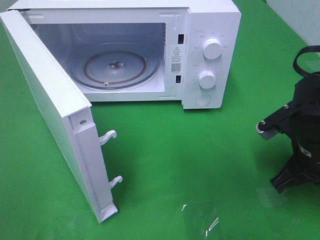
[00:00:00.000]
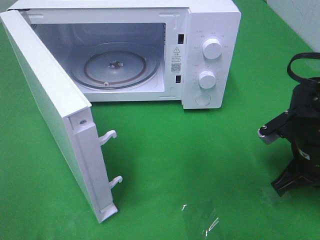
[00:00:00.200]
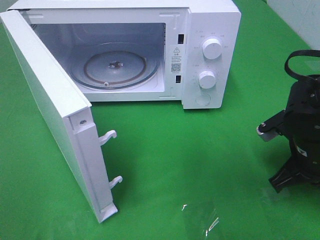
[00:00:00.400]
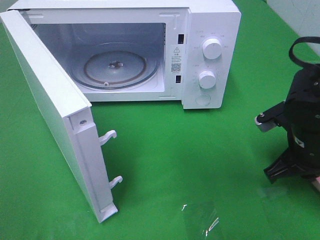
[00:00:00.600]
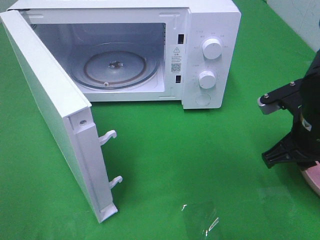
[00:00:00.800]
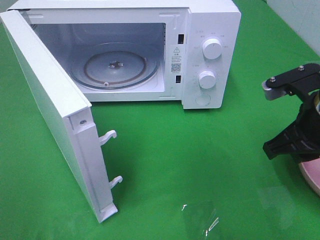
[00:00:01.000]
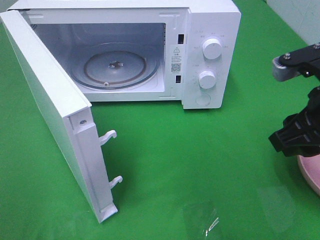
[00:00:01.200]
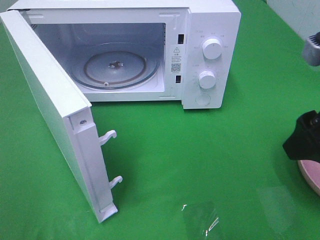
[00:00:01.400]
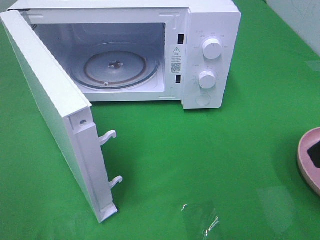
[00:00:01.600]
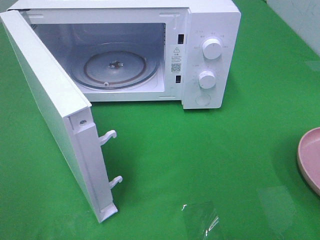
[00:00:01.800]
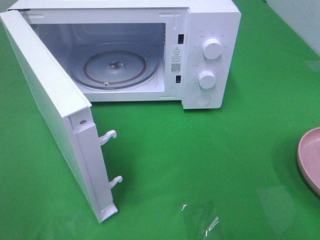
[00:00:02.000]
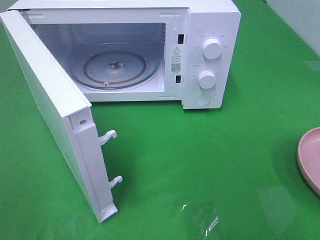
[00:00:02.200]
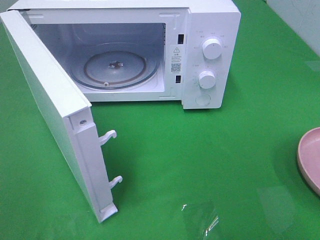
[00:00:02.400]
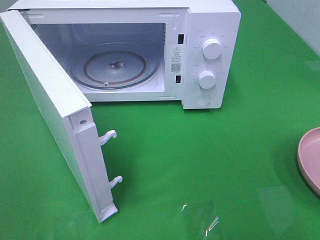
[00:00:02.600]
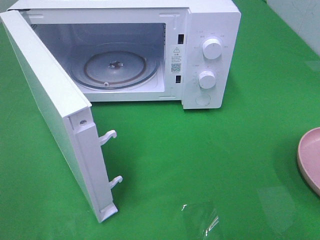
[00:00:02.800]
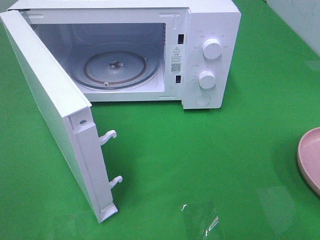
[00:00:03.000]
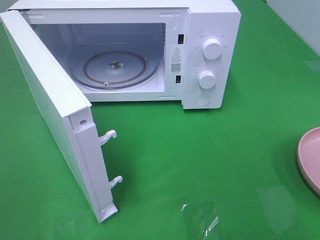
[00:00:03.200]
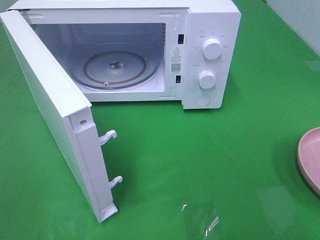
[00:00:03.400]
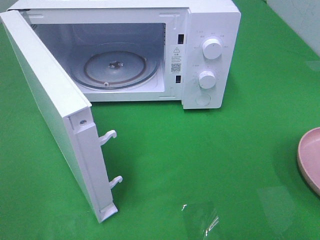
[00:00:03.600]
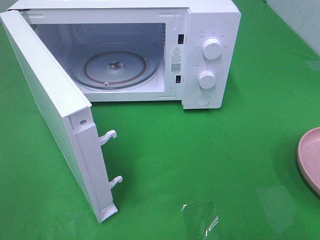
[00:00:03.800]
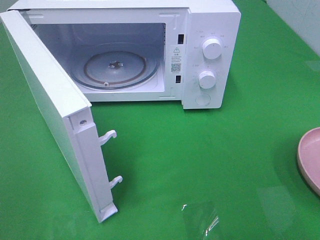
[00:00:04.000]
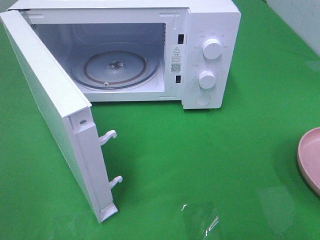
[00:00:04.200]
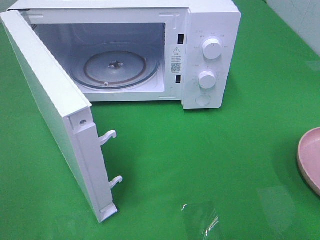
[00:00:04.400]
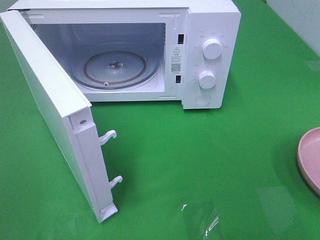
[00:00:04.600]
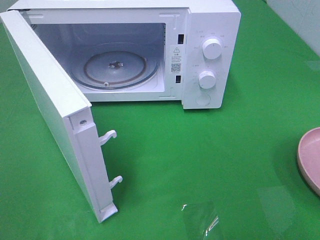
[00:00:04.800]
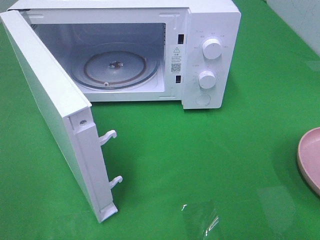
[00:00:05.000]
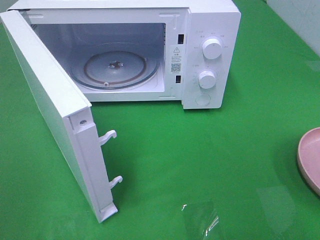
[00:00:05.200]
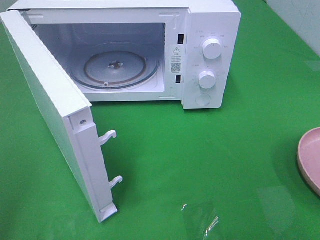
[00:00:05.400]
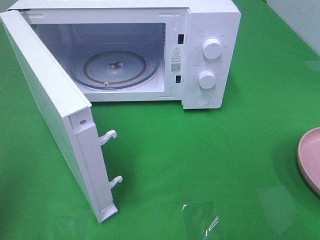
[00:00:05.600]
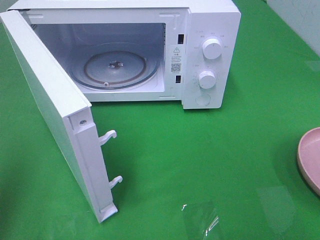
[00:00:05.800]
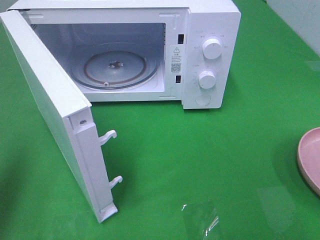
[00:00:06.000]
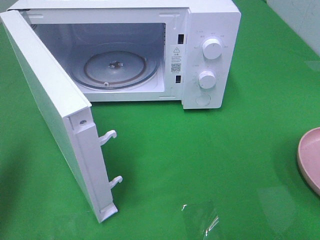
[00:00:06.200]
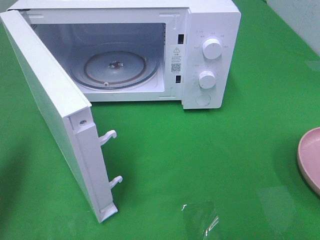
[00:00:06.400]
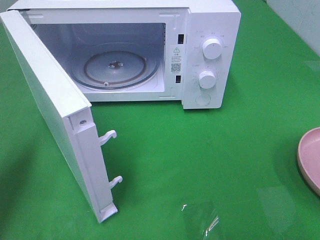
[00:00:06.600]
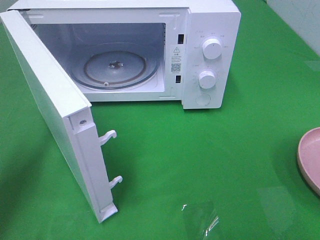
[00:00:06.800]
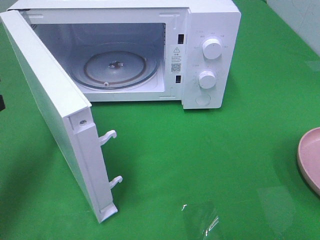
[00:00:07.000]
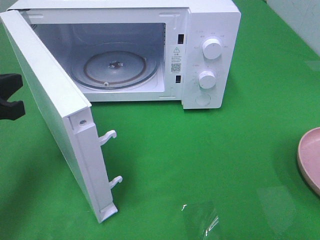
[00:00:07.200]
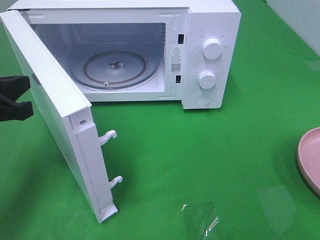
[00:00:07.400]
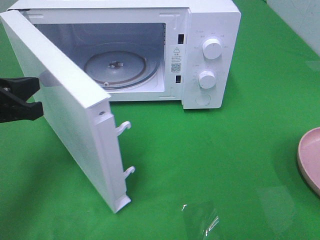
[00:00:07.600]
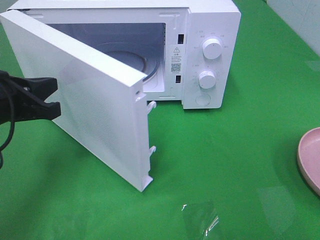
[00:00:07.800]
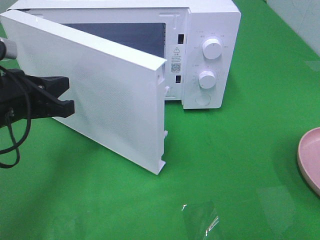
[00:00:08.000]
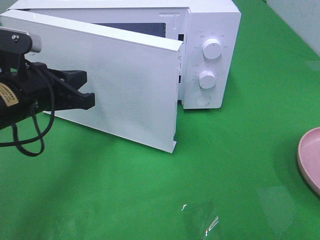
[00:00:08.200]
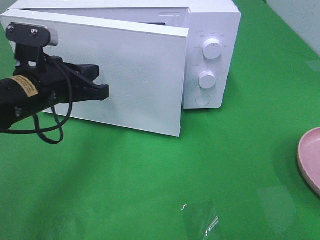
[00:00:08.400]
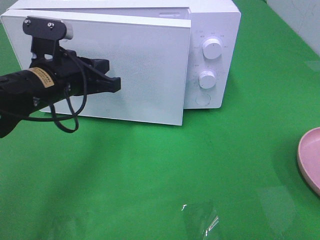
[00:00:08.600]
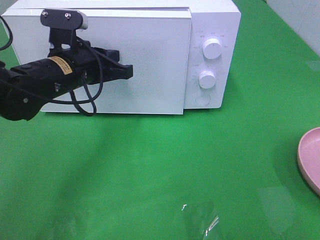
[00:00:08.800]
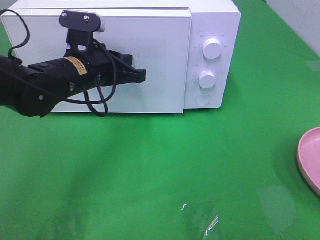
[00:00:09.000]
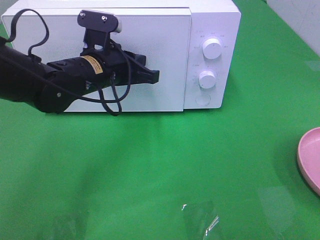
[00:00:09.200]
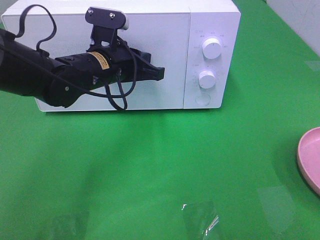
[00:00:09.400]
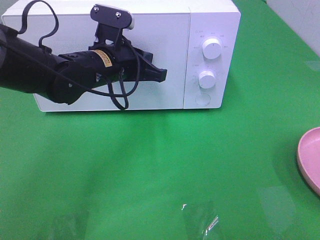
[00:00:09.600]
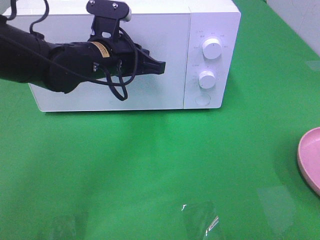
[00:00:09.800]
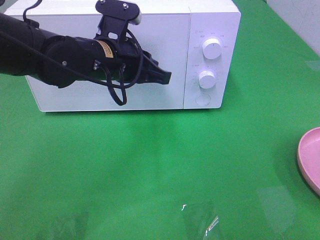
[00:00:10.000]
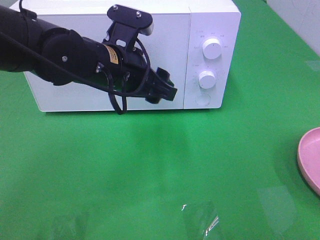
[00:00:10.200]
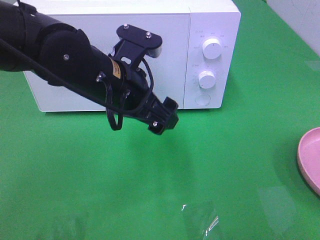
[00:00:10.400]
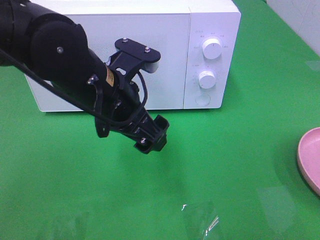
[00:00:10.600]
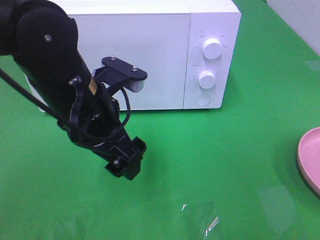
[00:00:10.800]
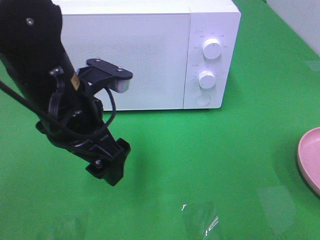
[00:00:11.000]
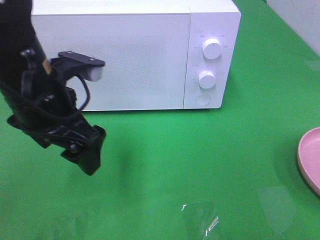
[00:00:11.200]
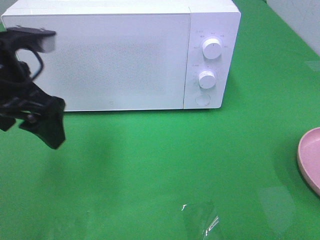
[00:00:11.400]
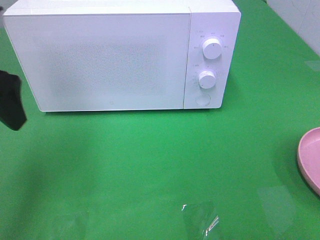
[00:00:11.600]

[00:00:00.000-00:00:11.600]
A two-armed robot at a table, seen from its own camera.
Task of the whole recording: Heat the burger.
Step, 00:00:01.000 to 00:00:09.800: Left hand: close the microwave door.
00:00:00.000 to 00:00:01.400: The right gripper shifts some 15 cm upward and backward, and opens.
00:00:01.400 to 00:00:02.800: The right gripper travels backward and to the right by approximately 20 cm.
00:00:02.800 to 00:00:04.400: Neither gripper changes place.
00:00:05.800 to 00:00:07.200: The left gripper travels downward, forward and to the right by approximately 15 cm.
00:00:07.200 to 00:00:08.800: The left gripper moves to the right and forward, about 15 cm.
00:00:08.800 to 00:00:10.200: The left gripper travels to the right by some 5 cm, and opens its fingers.
00:00:10.200 to 00:00:11.600: The left gripper travels to the left and upward by roughly 20 cm.

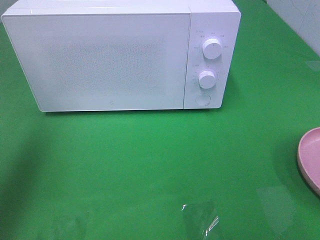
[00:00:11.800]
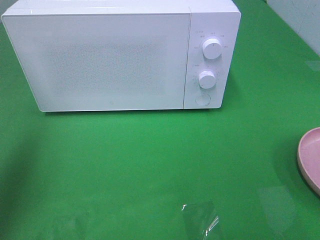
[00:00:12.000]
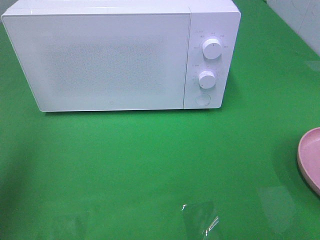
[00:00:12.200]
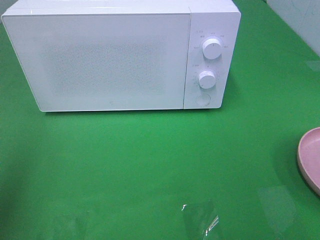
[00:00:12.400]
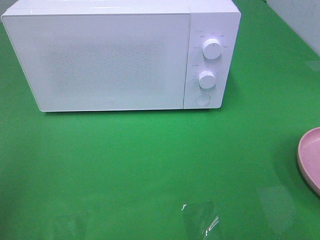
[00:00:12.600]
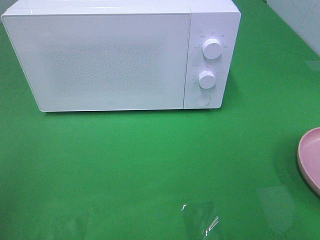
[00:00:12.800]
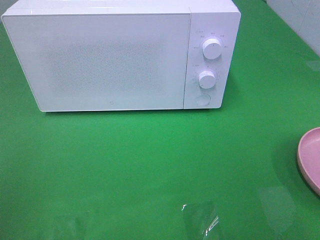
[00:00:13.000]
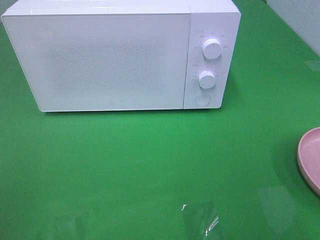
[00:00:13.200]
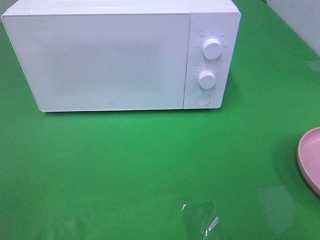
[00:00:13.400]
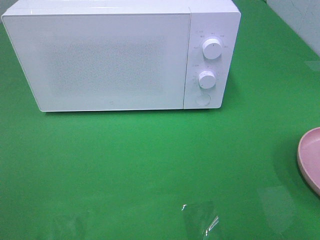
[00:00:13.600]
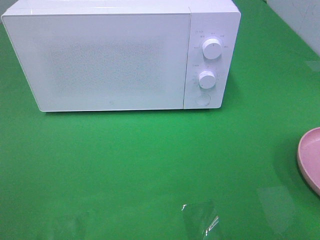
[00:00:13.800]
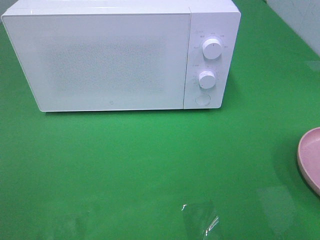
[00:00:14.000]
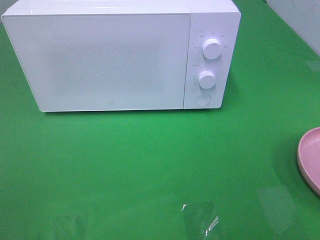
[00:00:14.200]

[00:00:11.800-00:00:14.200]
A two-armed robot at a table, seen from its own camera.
Task of the whole recording: Heat the burger.
00:00:11.800 to 00:00:13.000: The left gripper heads backward, covering some 20 cm.
